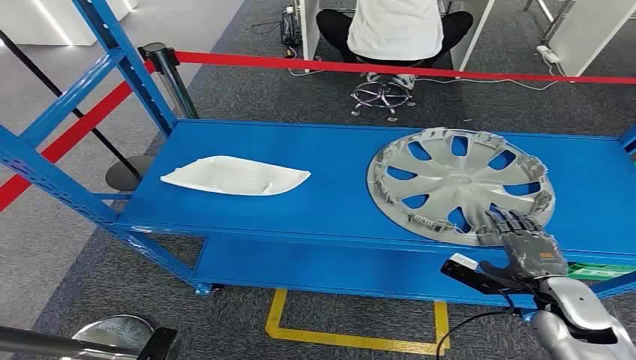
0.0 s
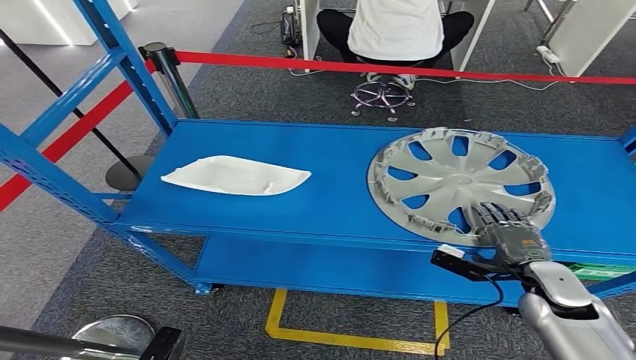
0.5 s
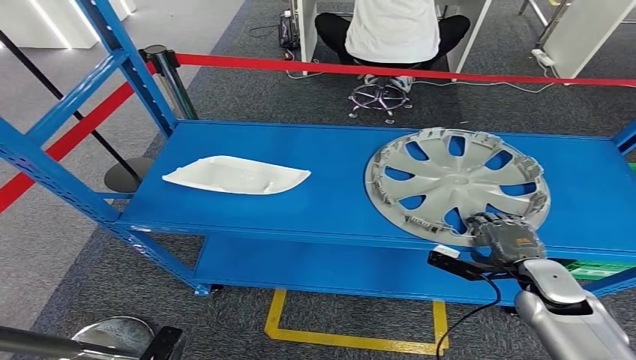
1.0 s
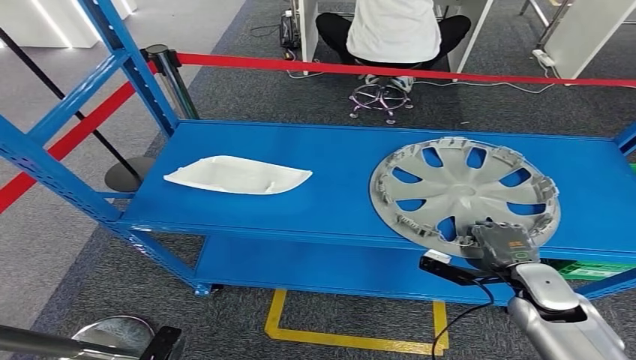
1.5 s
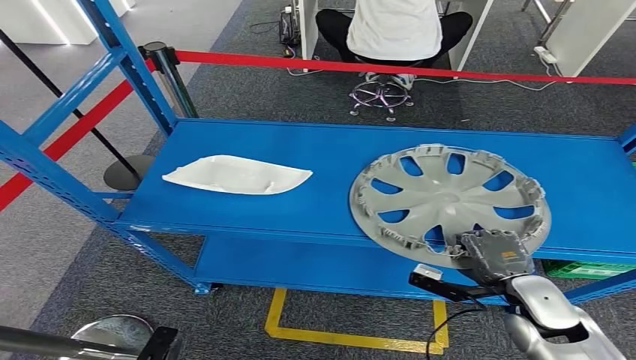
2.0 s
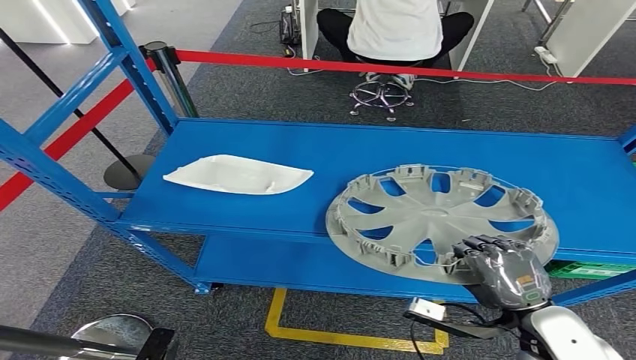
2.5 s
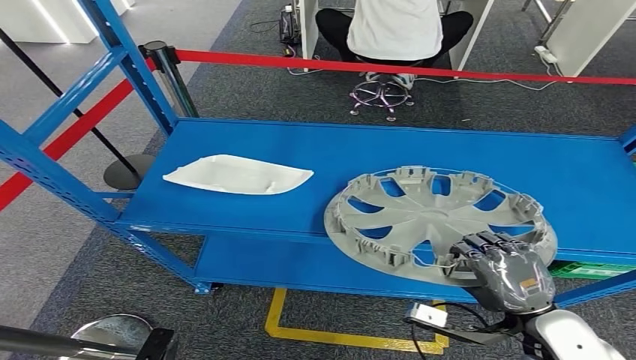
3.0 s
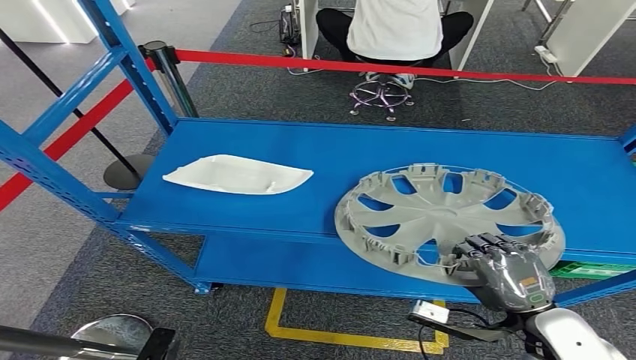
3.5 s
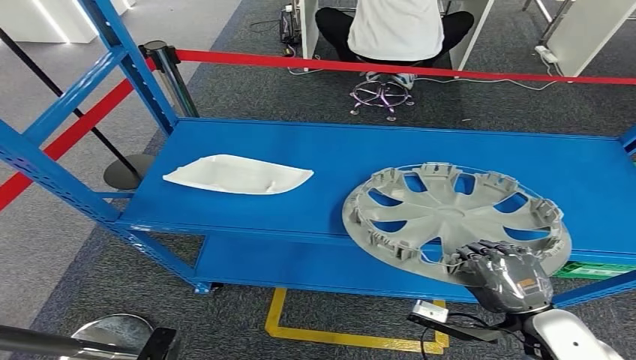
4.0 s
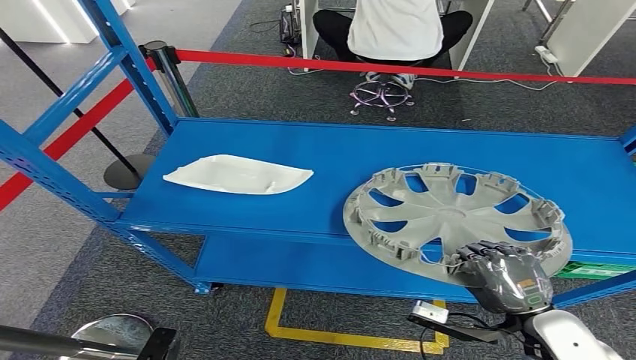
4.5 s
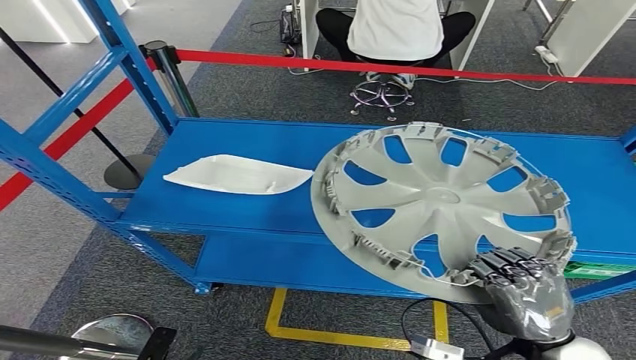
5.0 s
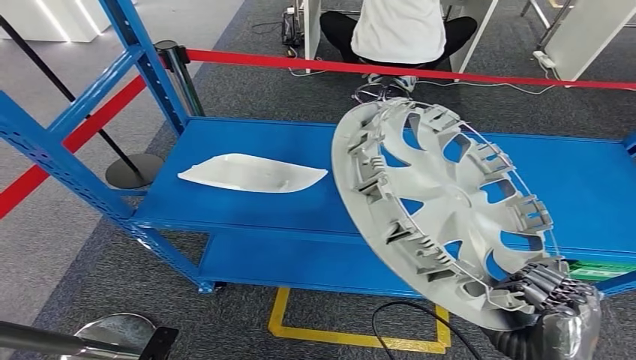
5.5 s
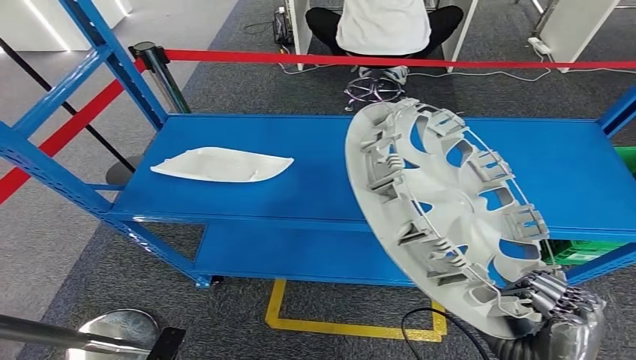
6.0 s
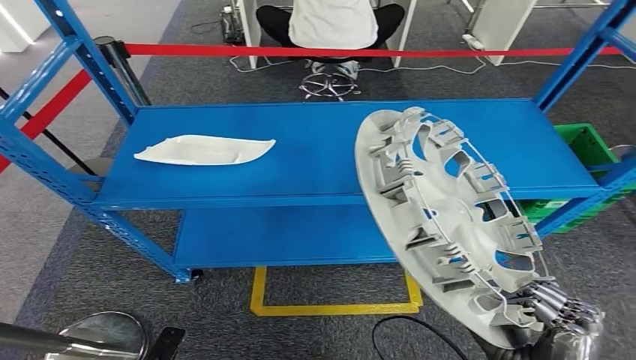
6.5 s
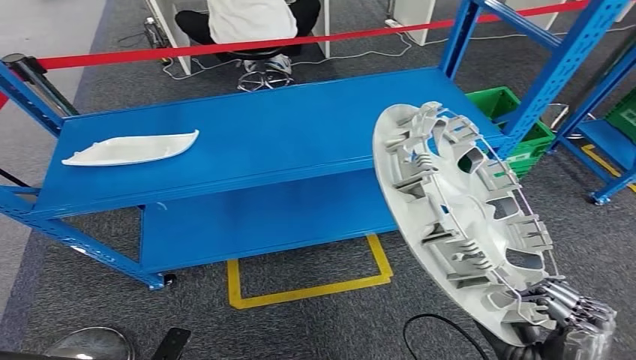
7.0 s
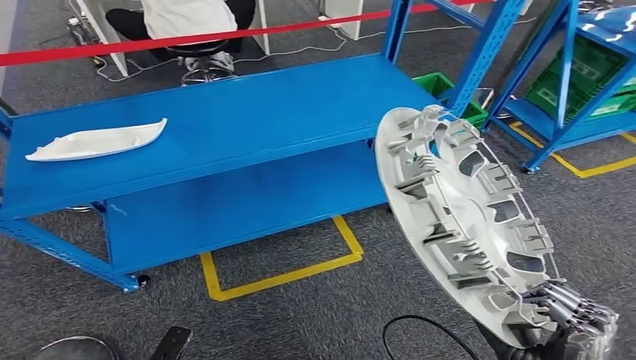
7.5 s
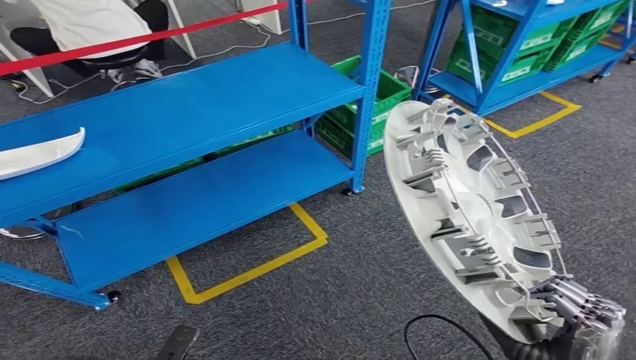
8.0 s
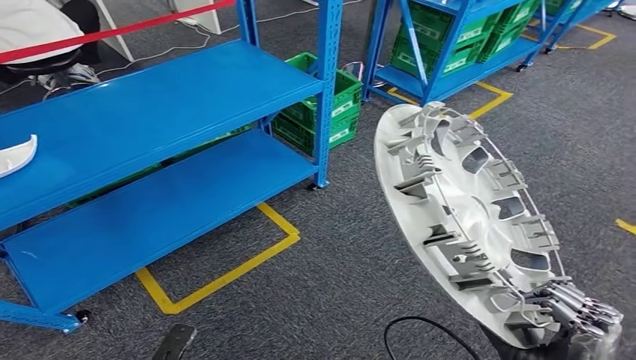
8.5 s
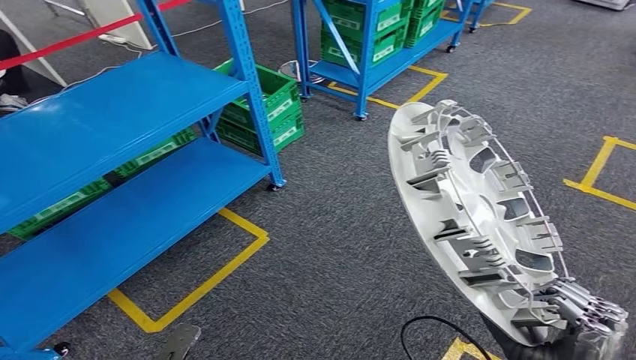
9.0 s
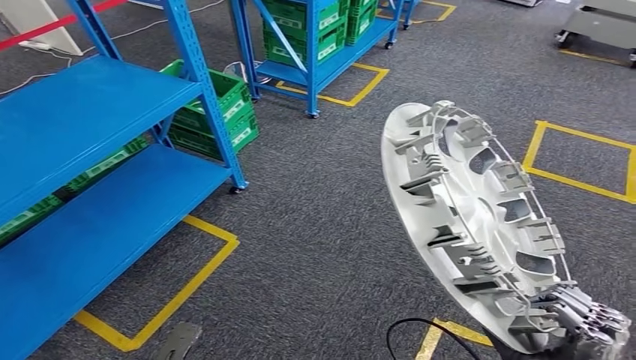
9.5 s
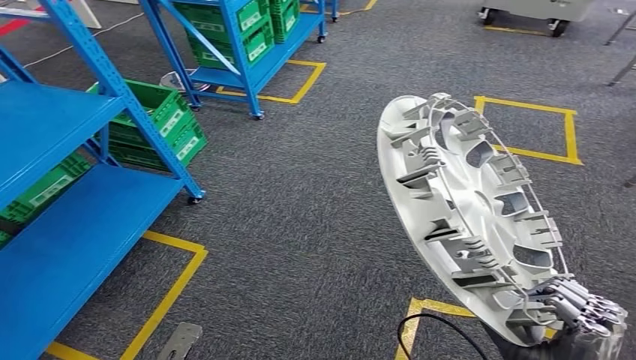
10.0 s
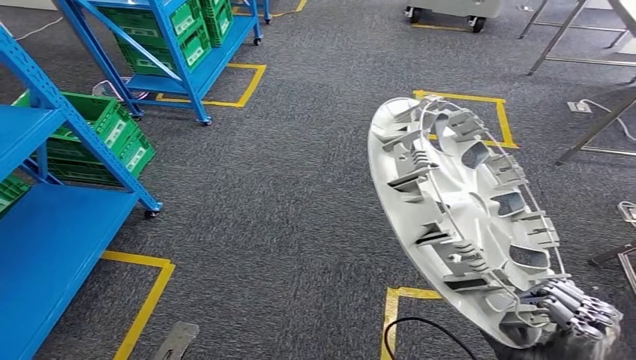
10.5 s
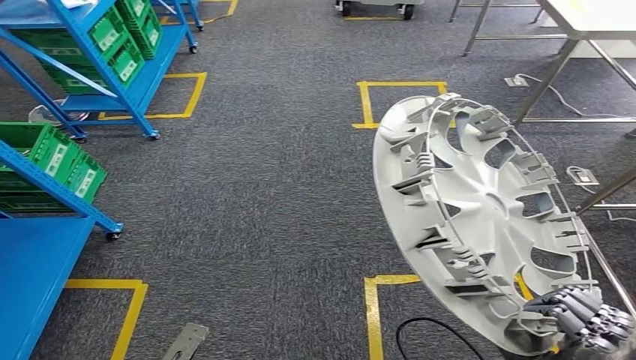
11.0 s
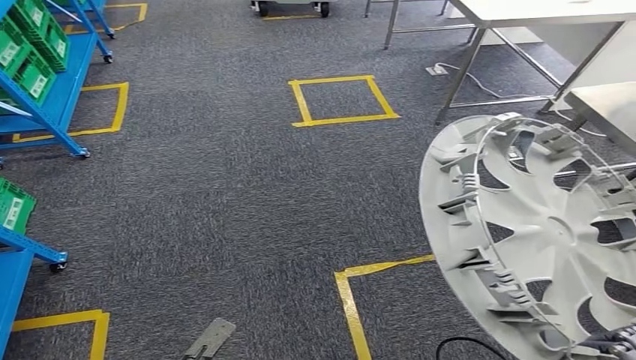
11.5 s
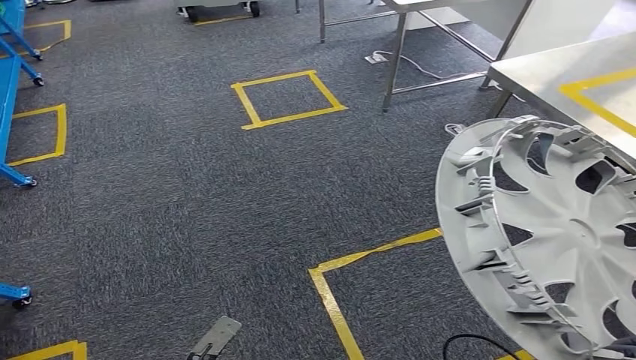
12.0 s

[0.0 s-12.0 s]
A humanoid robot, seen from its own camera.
Step, 0.0 to 6.5 s: Pick up the small component from the shelf.
2.0 to 4.0 s: The right hand moves backward, some 5 cm.

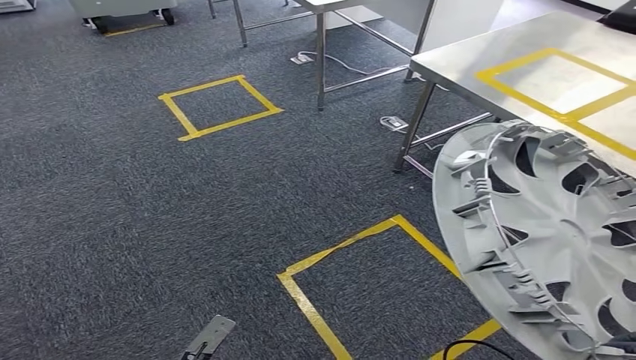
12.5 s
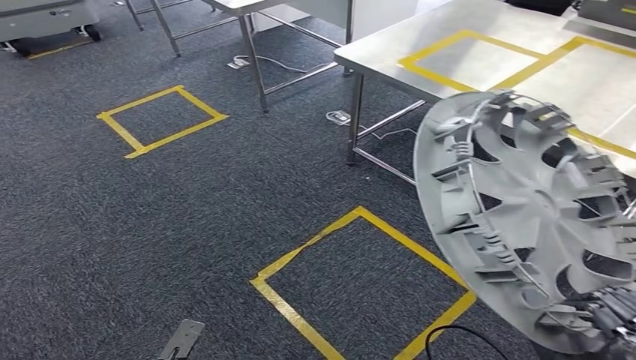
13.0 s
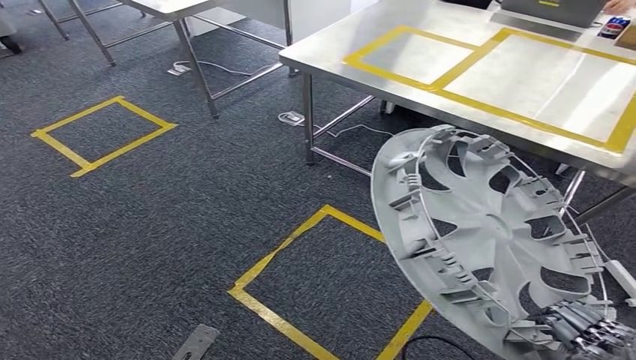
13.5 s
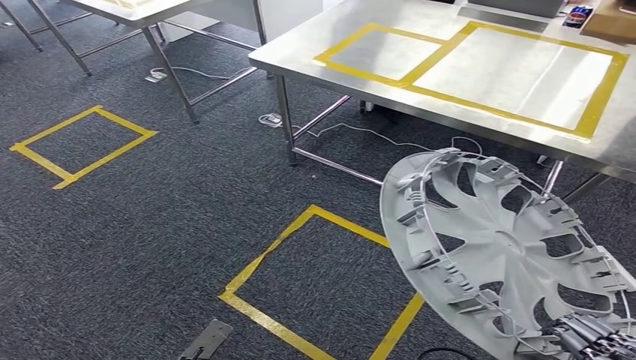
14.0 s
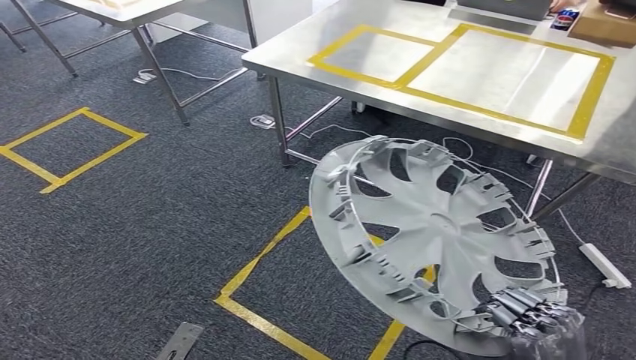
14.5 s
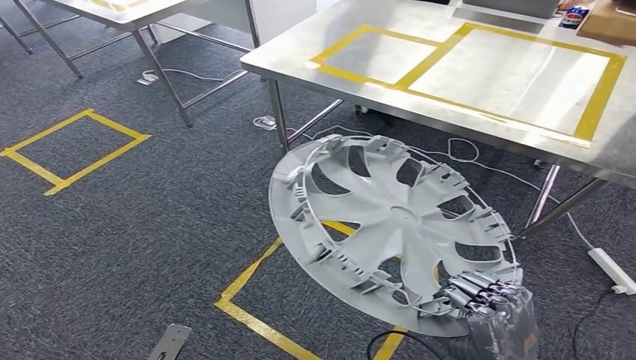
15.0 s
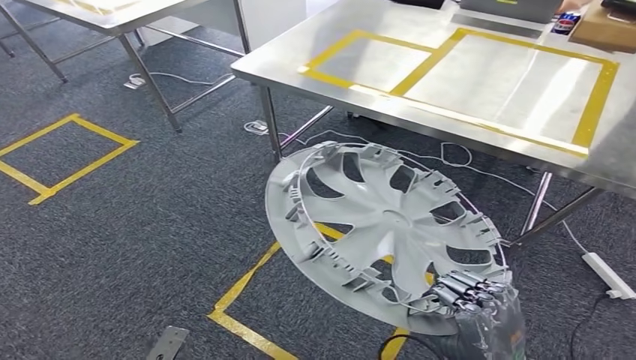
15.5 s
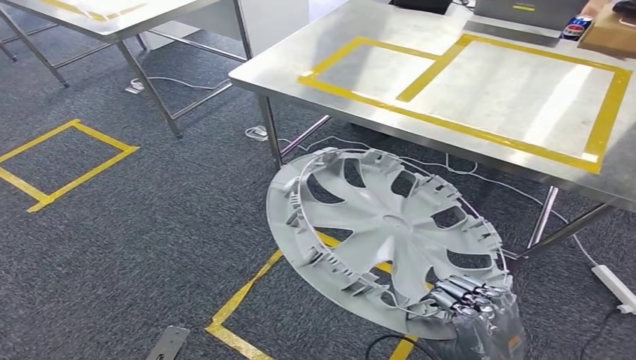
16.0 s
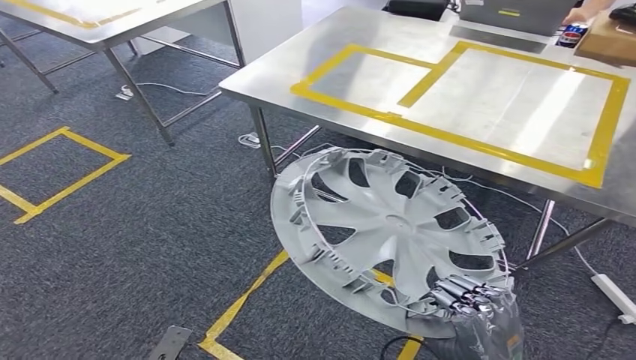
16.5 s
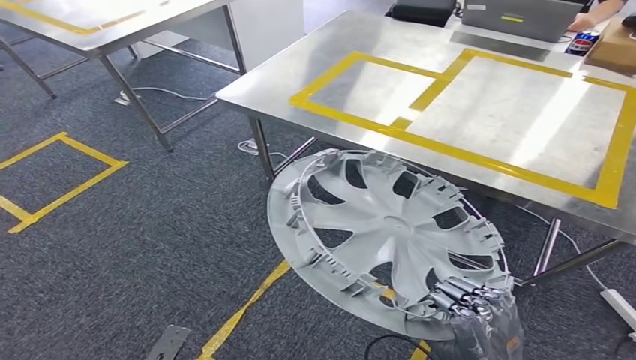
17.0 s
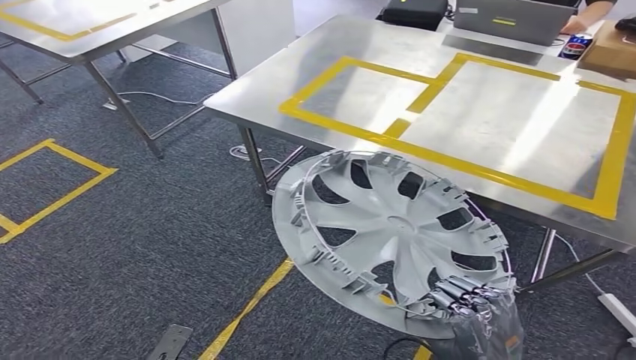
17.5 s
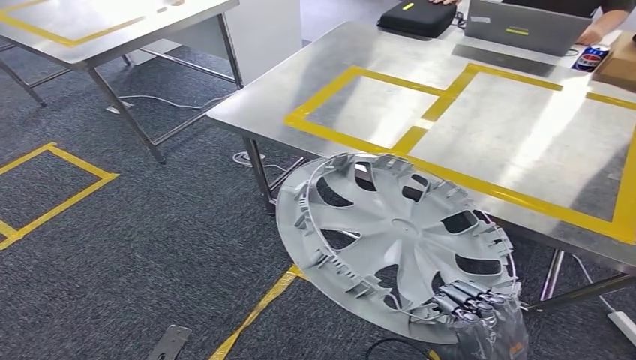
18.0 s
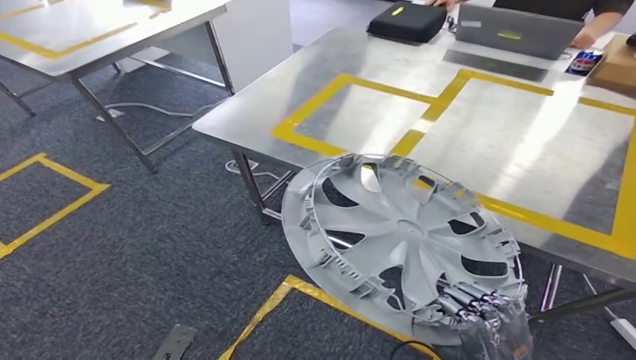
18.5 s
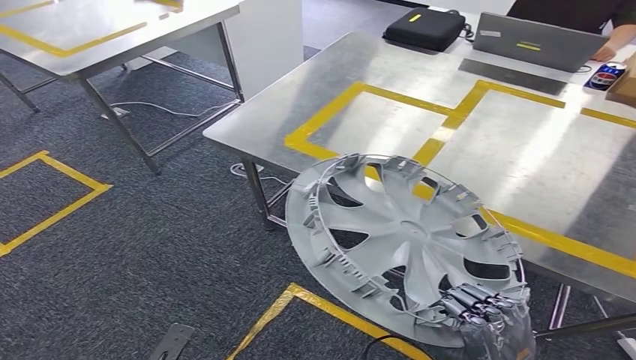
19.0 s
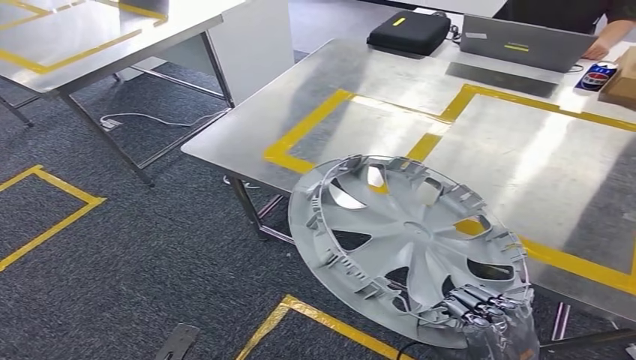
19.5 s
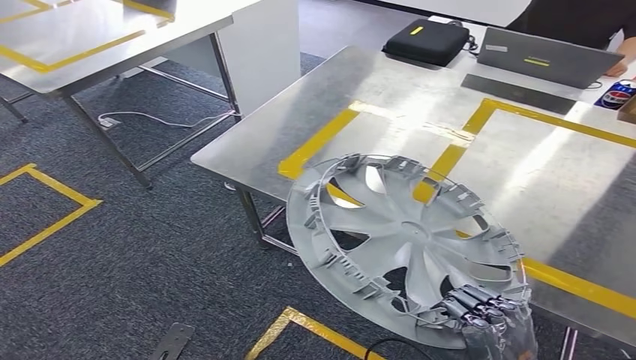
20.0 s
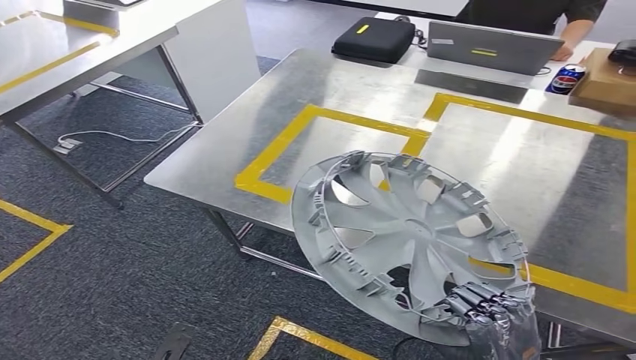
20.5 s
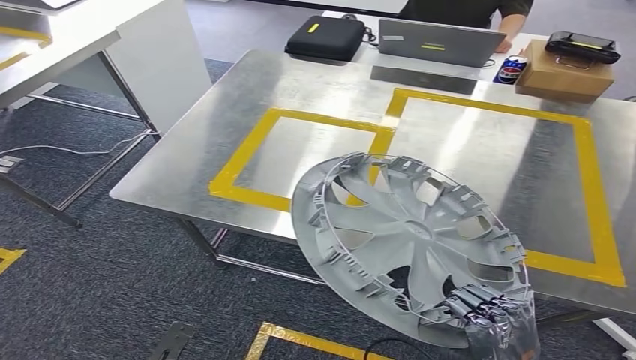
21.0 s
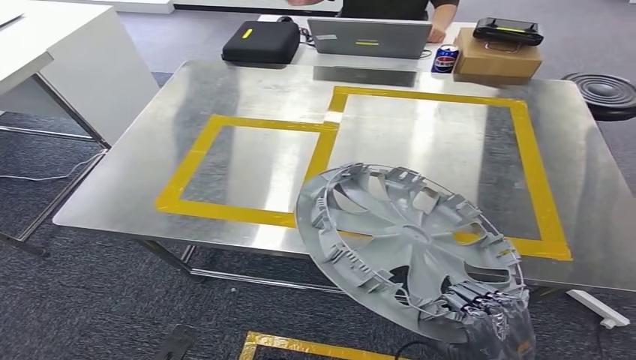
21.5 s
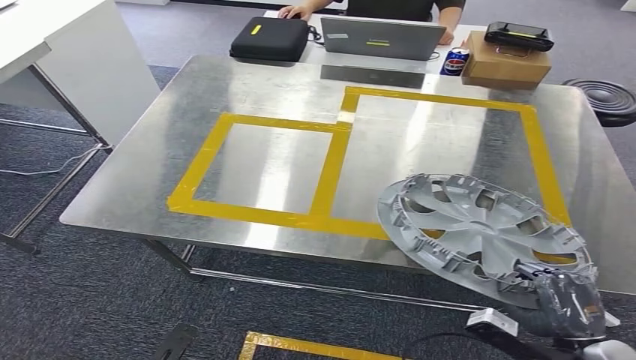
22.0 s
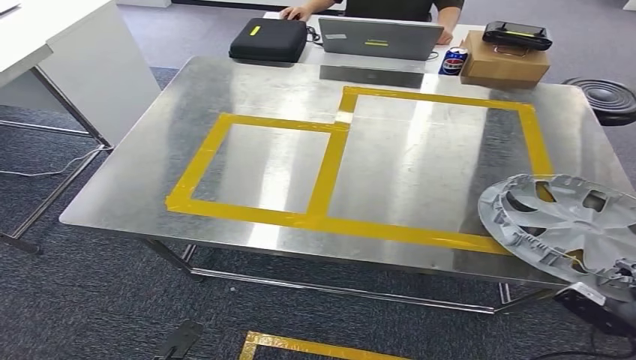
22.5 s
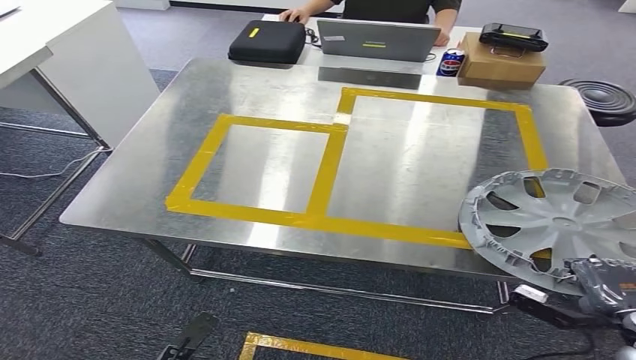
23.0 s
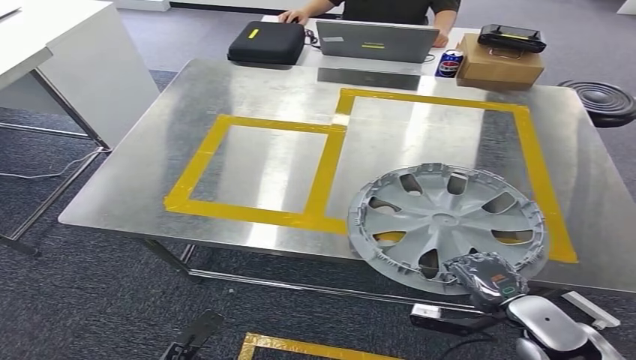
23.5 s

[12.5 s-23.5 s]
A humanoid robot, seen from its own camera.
Step, 12.5 to 18.5 s: Move the small component to the workbench.
